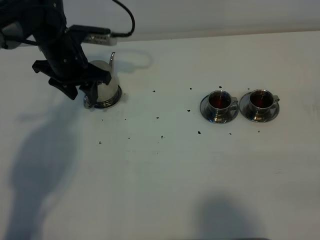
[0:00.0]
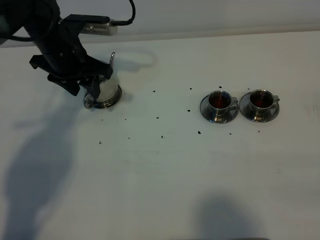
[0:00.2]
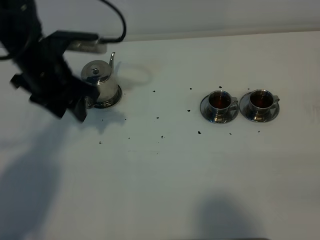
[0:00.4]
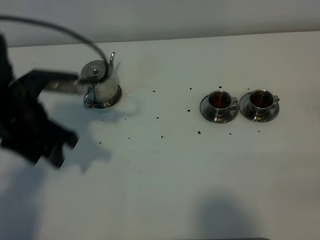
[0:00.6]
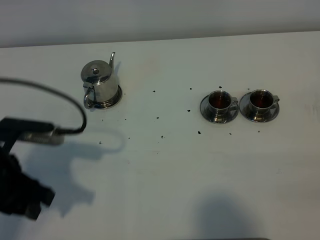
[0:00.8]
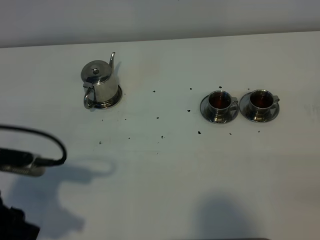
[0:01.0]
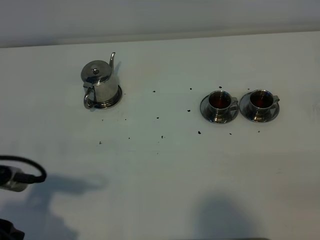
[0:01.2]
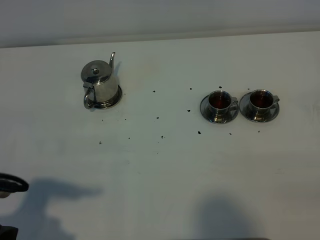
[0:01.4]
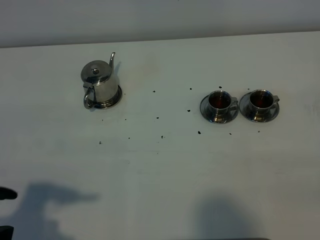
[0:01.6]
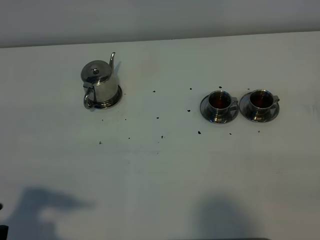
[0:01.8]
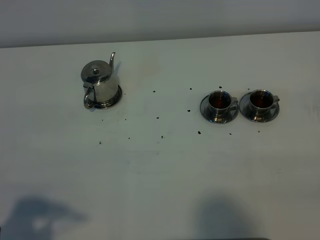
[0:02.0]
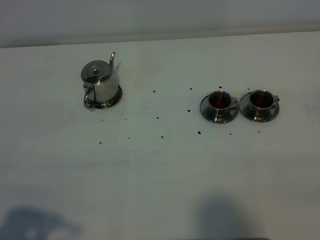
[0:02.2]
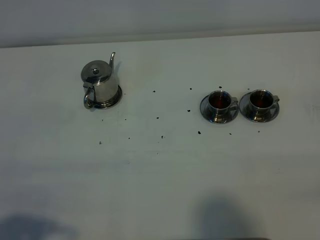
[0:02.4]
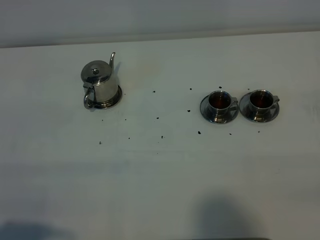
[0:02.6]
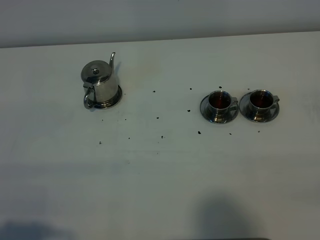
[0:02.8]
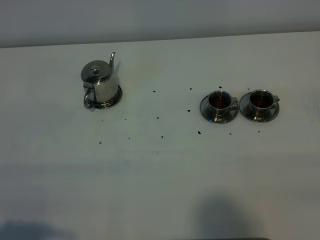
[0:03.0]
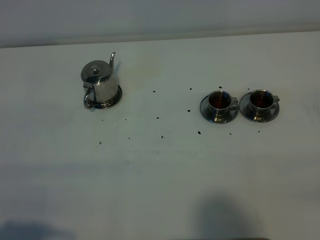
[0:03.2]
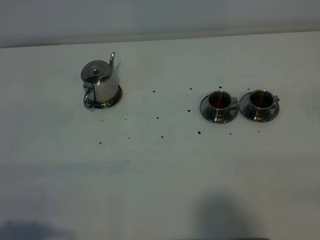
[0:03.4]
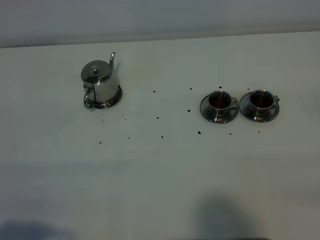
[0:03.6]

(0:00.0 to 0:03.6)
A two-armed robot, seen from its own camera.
Task of the whole recording: grasp the stainless steel teapot and pour the tea into the two stainless steel teacups one by one, put the stainless steel teapot back in its original place.
0:00.0 - 0:01.8: The left gripper is displaced backward by roughly 40 cm.
0:01.8 - 0:03.6: The left gripper goes about 5 cm backward.

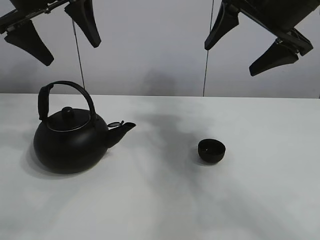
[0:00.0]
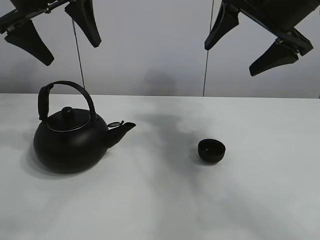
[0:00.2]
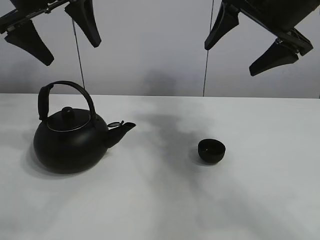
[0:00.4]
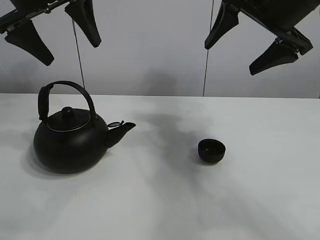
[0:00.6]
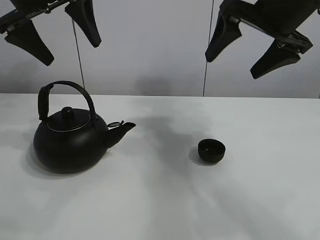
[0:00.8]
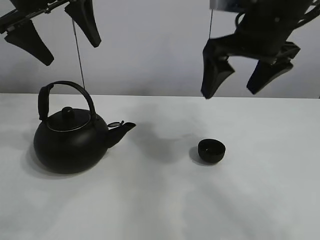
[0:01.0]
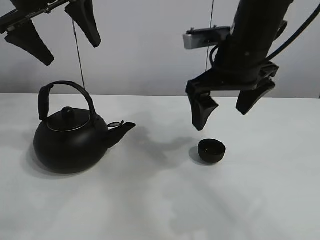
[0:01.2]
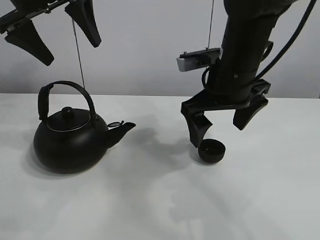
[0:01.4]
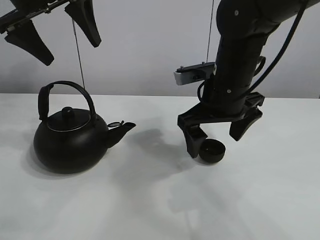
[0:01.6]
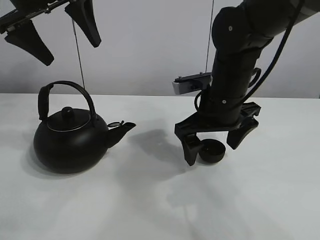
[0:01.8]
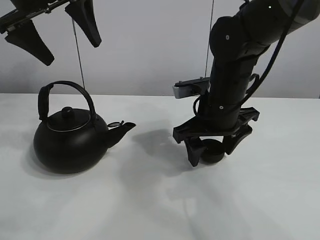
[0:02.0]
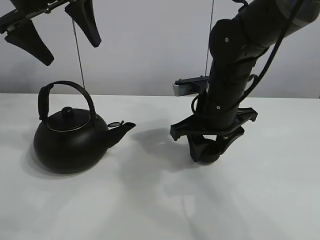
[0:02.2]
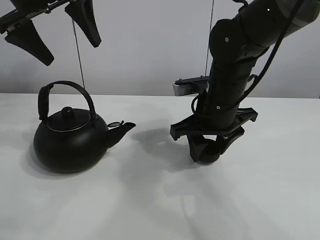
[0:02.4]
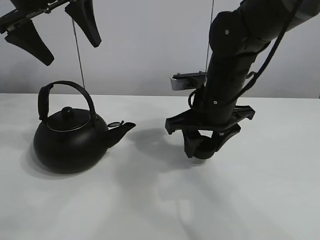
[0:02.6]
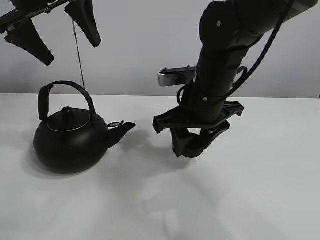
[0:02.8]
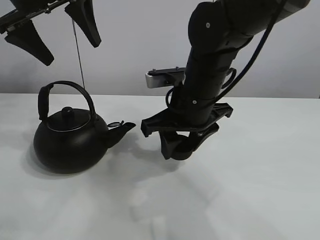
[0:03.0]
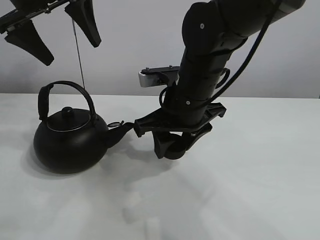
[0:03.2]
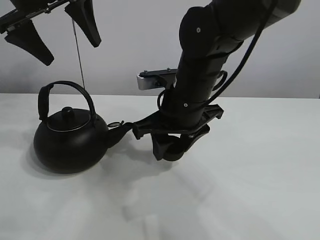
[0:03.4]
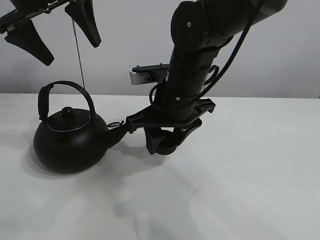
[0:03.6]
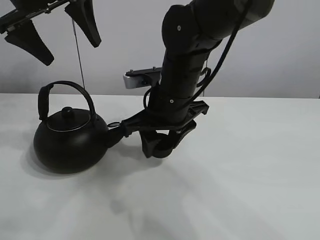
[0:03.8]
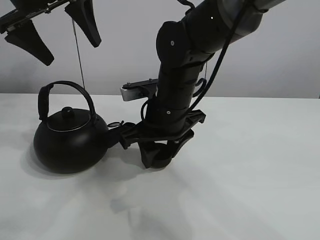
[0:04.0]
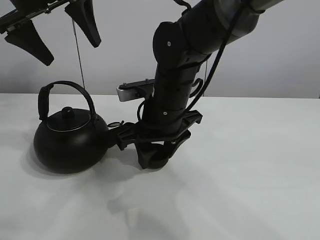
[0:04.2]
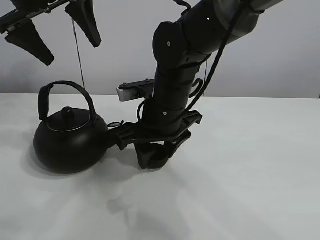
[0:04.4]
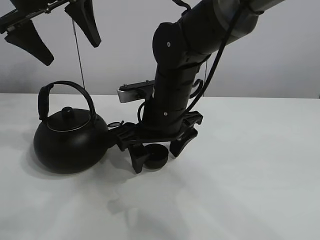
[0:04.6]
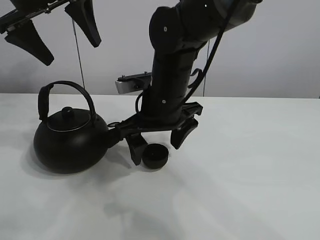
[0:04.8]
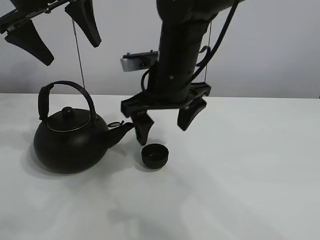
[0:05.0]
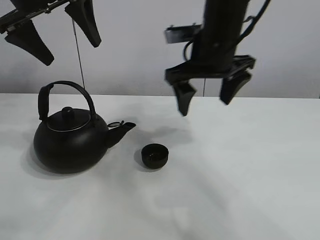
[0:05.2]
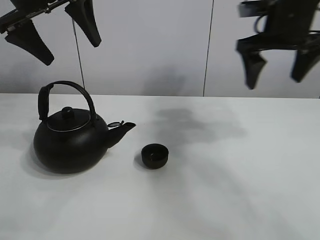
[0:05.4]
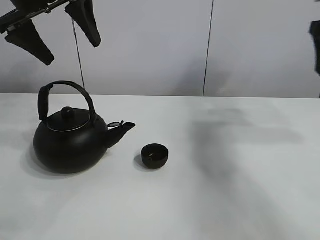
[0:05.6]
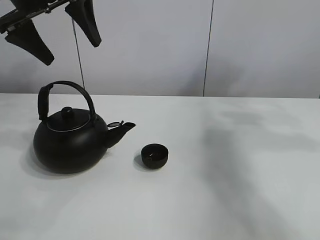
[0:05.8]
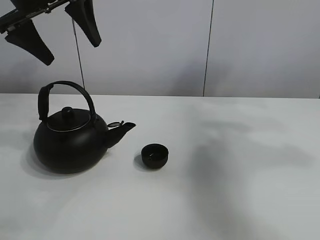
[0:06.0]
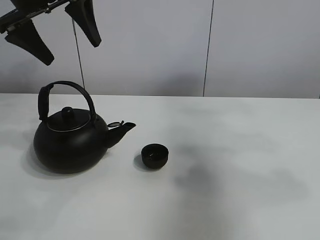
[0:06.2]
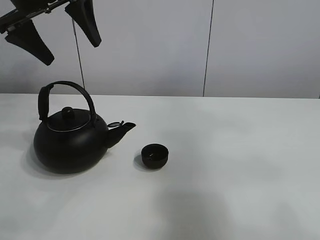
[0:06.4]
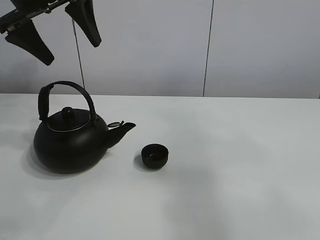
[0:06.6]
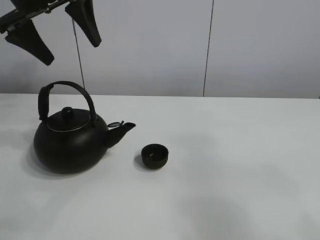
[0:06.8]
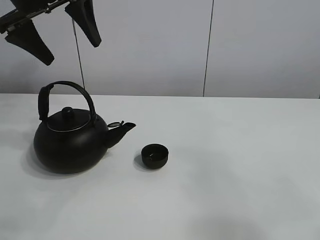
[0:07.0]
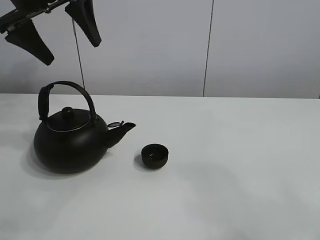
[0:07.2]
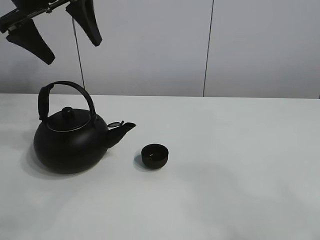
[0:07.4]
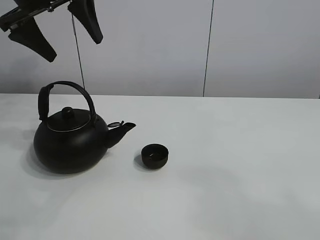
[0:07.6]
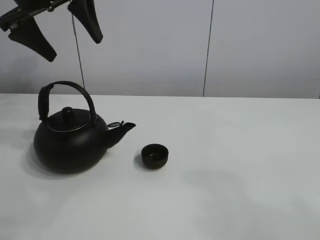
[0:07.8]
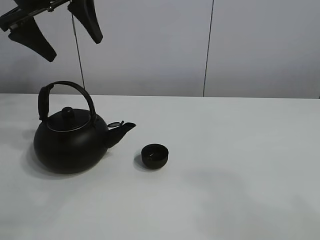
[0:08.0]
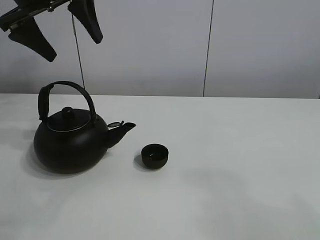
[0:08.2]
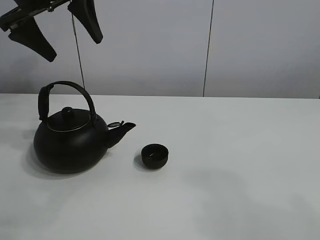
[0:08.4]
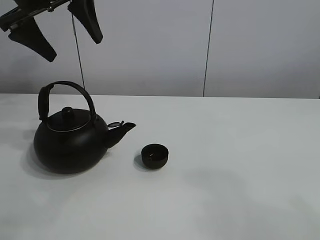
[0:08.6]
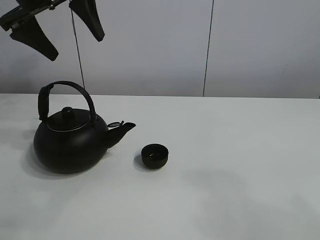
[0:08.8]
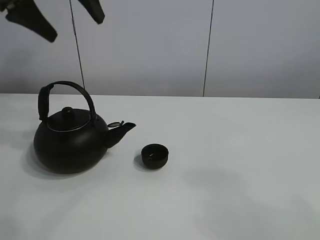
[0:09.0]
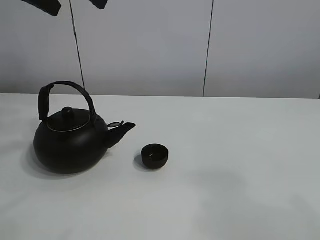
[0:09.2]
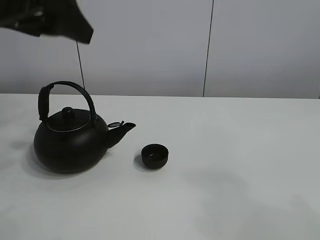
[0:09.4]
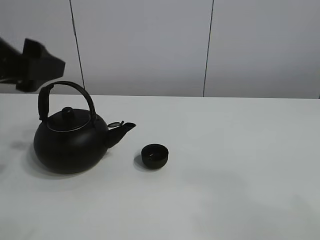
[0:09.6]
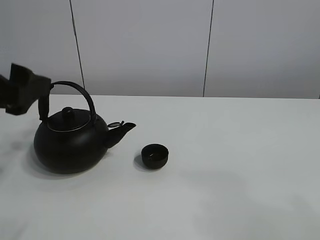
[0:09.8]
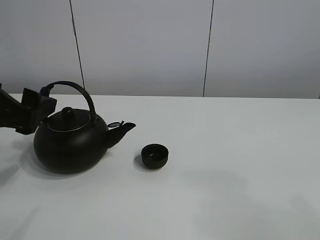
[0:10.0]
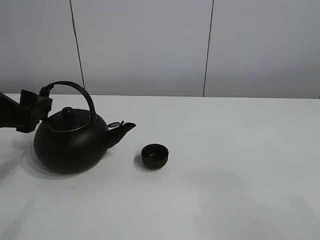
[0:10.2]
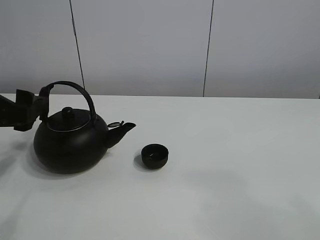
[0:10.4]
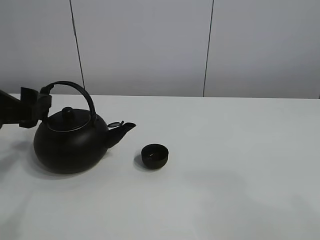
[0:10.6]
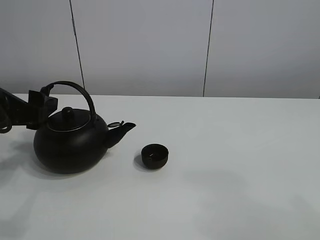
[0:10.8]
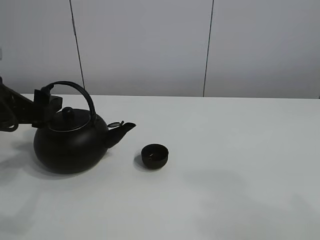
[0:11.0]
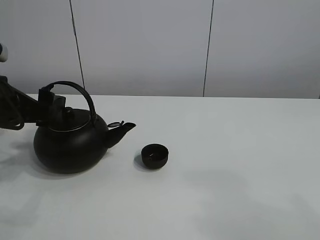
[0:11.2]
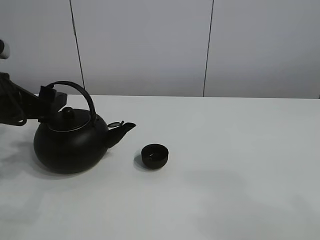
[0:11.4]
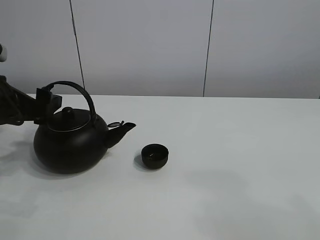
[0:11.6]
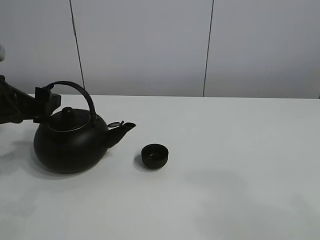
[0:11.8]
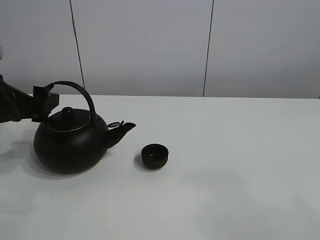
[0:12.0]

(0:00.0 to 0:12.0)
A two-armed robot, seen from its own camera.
Task of the whole recording: pour tea into the teacup.
Step, 0:00.0 - 0:02.4: Pick up the teacup with the right gripper.
Step, 0:02.8 - 0:04.4: Place the teacup in the center of view with the right gripper.
0:01.6 - 0:03.0: The right gripper travels to the left by approximately 5 cm, and closes.
0:03.0 - 0:04.4: The right gripper changes place by roughly 5 cm.
0:04.4 - 0:06.0: The right gripper shifts roughly 40 cm to the right and upward, and opens.
0:06.0 - 0:07.6: The right gripper shifts about 30 cm backward.
0:07.6 - 0:09.0: The grippers make only small movements.
0:09.0 - 0:10.4: The left gripper is displaced downward and backward by about 20 cm.
0:10.4 - 0:12.0: The left gripper moves forward, roughly 5 cm.

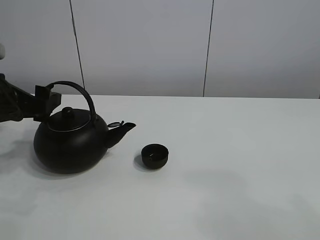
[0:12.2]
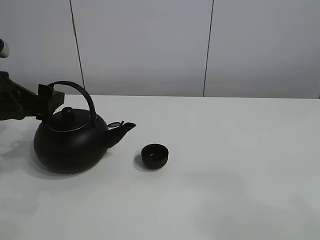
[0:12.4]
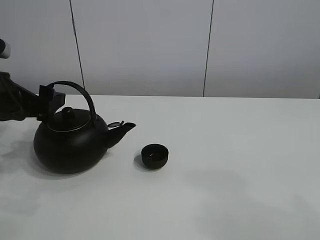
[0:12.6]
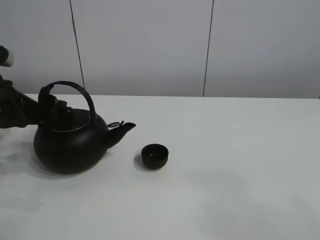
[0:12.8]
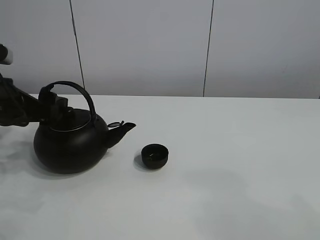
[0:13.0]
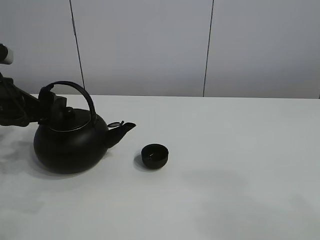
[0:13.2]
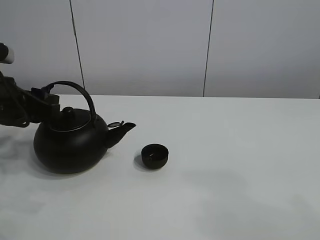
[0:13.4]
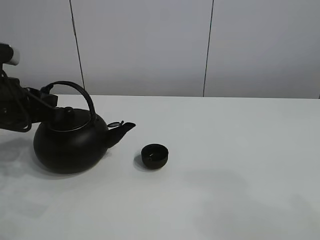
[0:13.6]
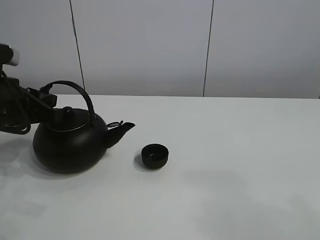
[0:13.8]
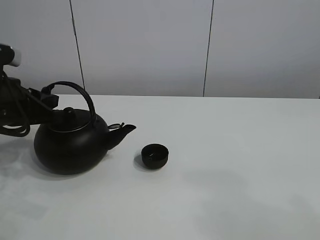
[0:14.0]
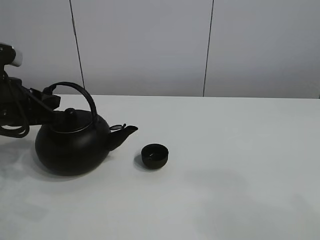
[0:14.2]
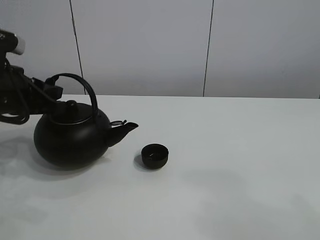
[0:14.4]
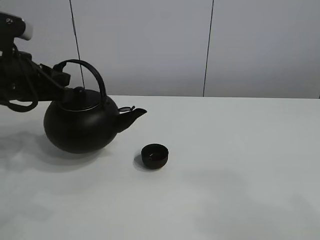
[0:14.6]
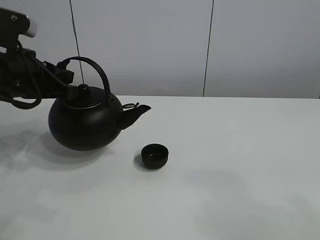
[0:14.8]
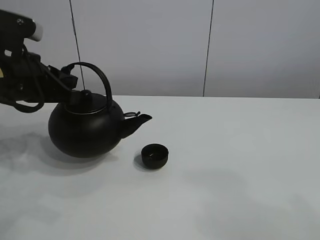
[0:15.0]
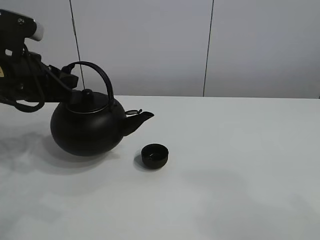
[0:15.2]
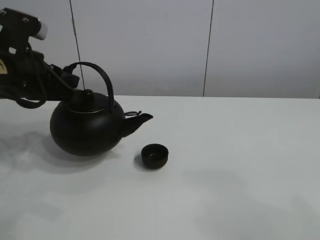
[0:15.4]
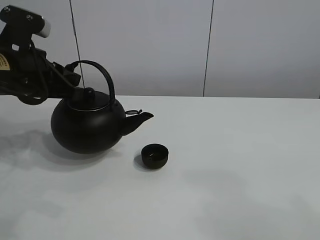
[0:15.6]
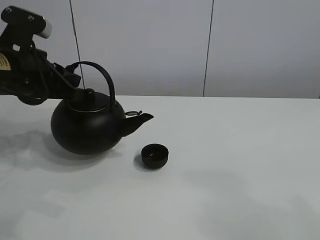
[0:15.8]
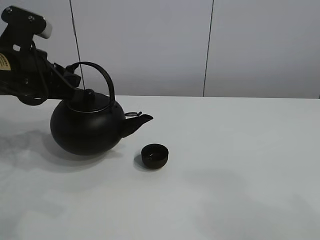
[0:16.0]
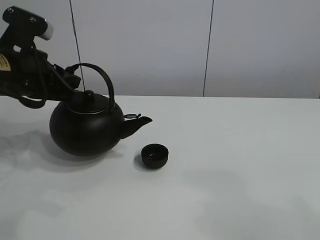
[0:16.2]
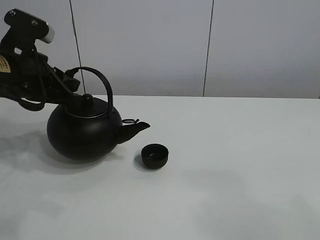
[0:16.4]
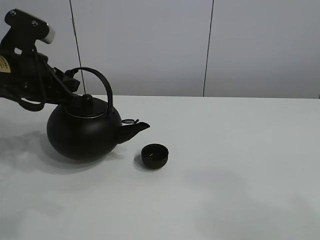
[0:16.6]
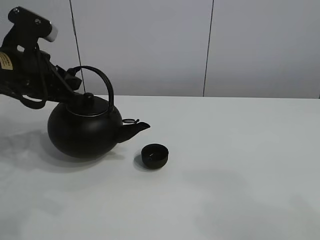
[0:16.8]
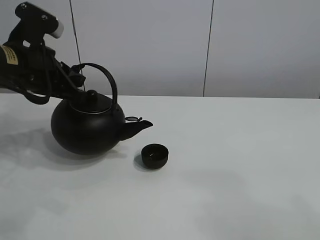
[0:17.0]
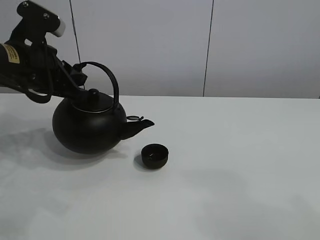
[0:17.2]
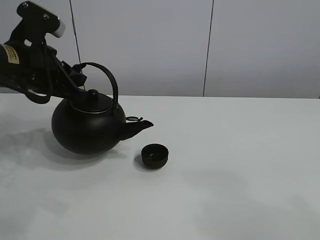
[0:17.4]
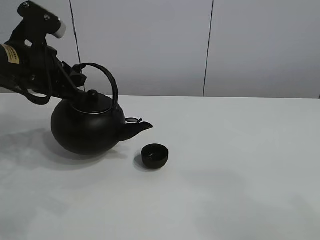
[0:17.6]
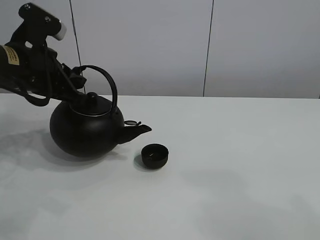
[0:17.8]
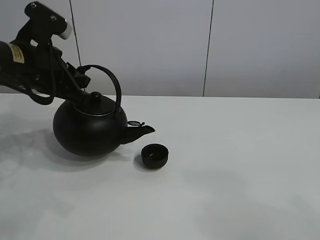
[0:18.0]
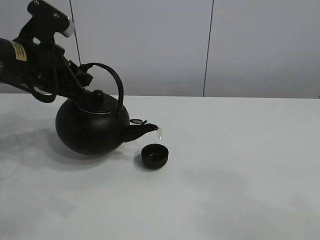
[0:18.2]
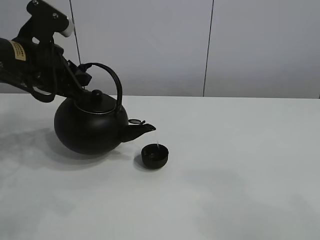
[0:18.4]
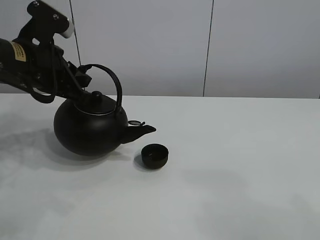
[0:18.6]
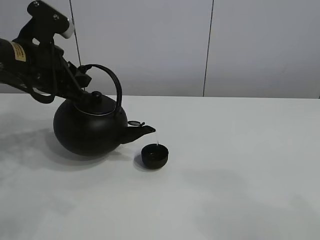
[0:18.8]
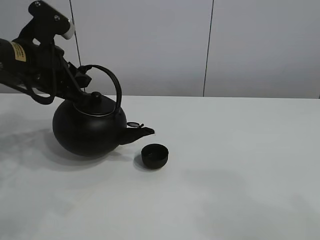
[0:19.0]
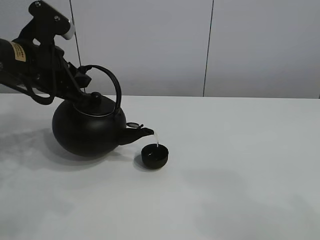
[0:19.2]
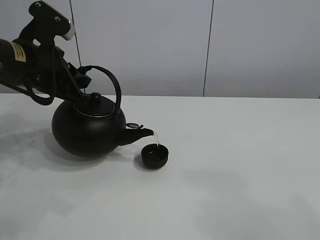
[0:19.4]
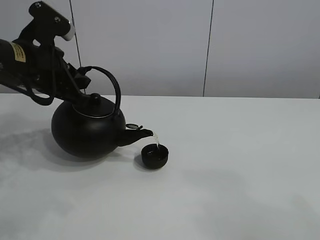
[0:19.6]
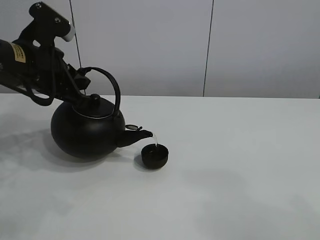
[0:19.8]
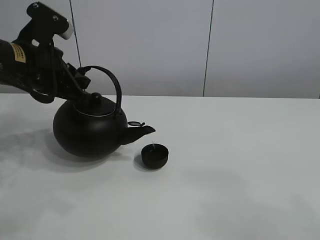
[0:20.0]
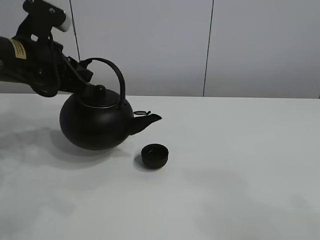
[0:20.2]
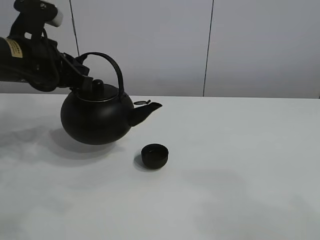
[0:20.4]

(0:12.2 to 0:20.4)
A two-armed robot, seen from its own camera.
Task of the whole recording: pour tea into the teacup.
Step, 0:12.2 - 0:14.2: Pick up the teapot with the left gripper.
Step, 0:14.6 - 0:20.0: Pour tea into the teacup with the left gripper.
0:12.2 - 0:13.8: The left gripper closes.
0:13.8 - 0:15.4: The left gripper moves about 5 cm.
0:15.4 - 0:17.2: The grippers make only small movements.
0:17.2 - 0:18.8: Both grippers stay put.
0:18.8 - 0:20.4: The grippers stay close to where they were, moving slightly.
